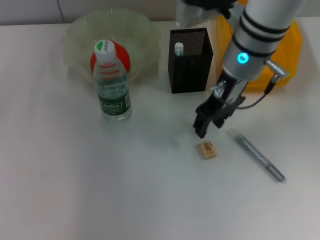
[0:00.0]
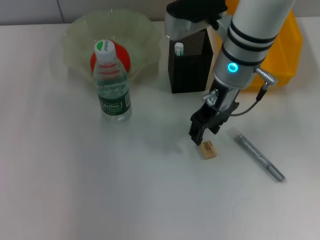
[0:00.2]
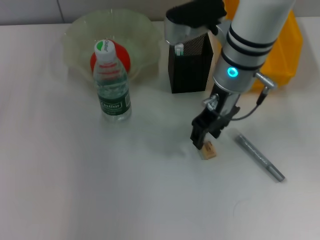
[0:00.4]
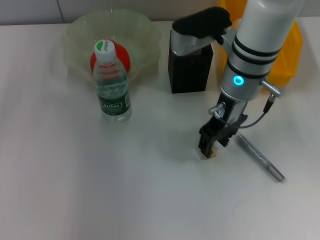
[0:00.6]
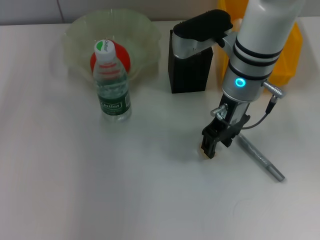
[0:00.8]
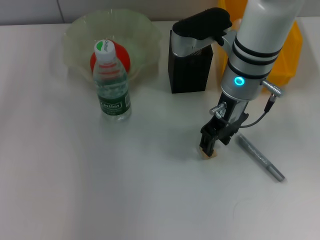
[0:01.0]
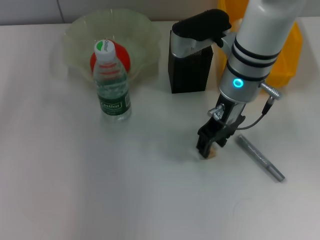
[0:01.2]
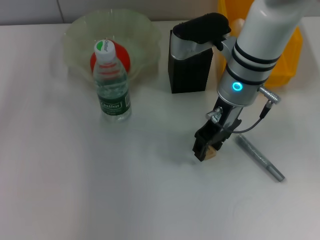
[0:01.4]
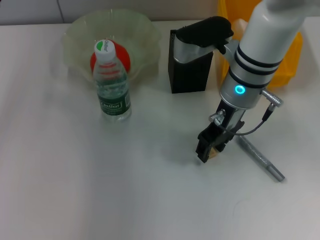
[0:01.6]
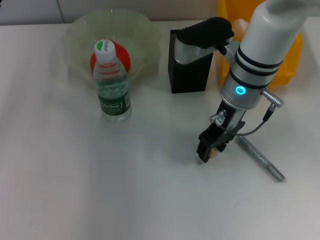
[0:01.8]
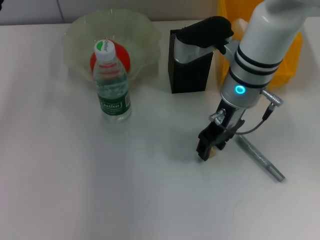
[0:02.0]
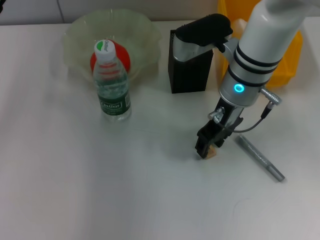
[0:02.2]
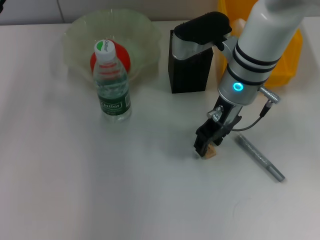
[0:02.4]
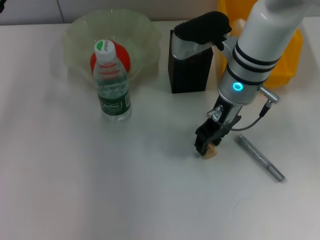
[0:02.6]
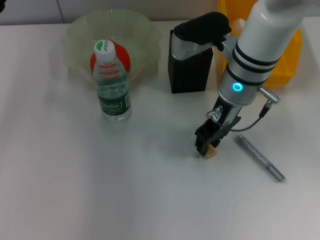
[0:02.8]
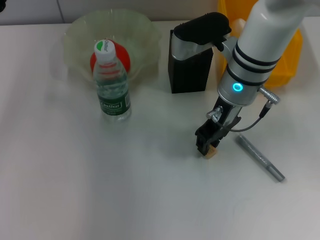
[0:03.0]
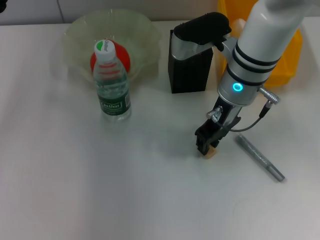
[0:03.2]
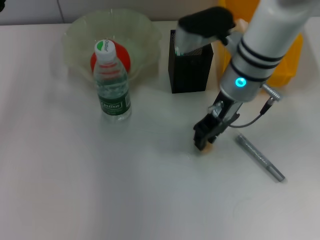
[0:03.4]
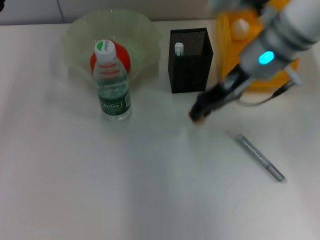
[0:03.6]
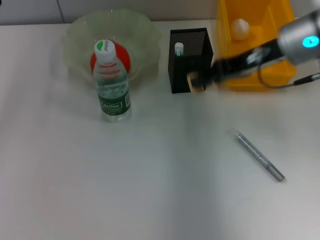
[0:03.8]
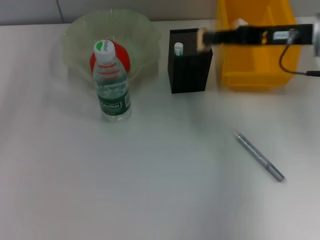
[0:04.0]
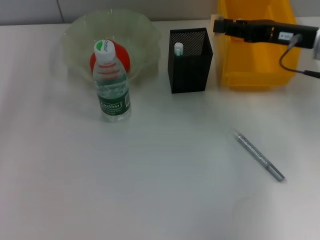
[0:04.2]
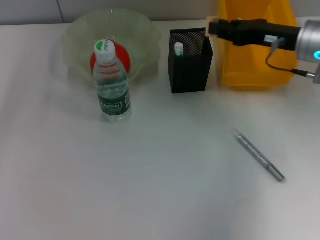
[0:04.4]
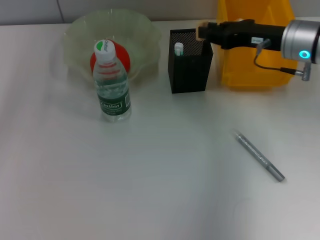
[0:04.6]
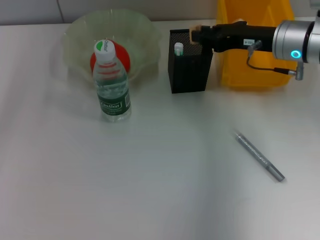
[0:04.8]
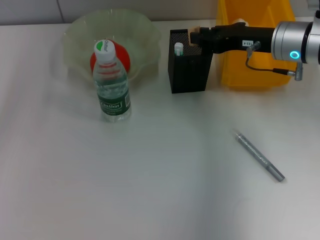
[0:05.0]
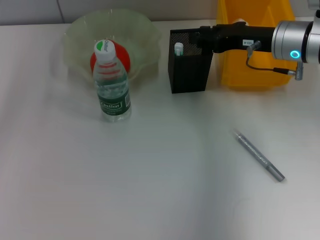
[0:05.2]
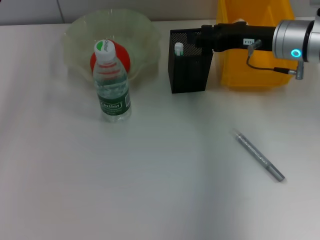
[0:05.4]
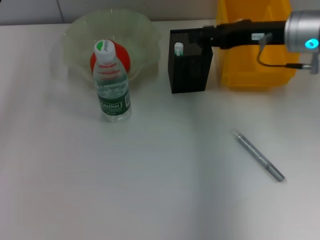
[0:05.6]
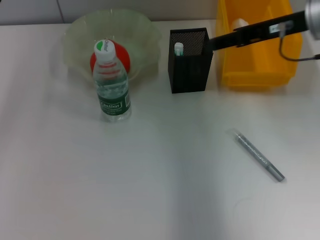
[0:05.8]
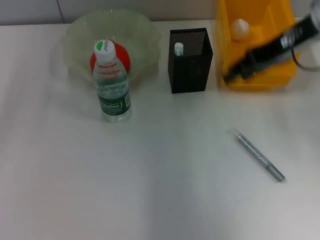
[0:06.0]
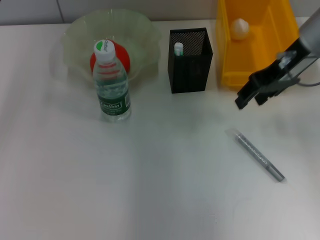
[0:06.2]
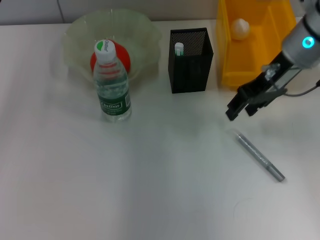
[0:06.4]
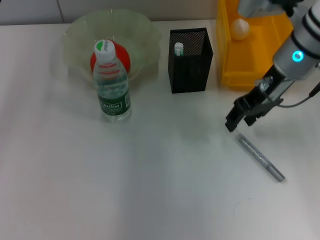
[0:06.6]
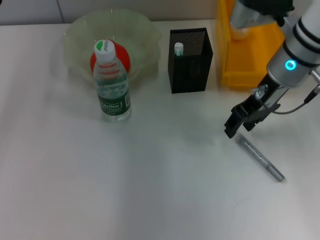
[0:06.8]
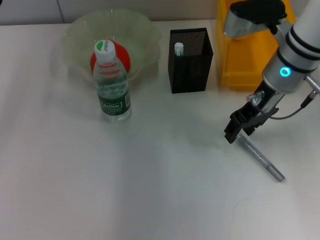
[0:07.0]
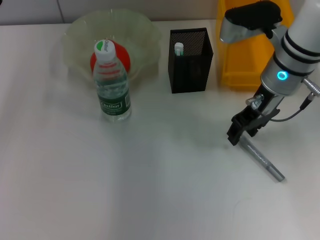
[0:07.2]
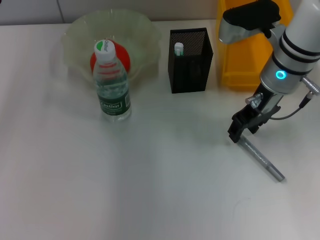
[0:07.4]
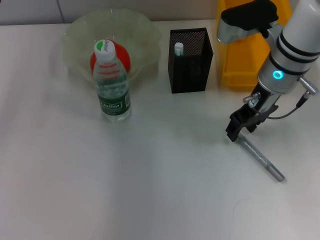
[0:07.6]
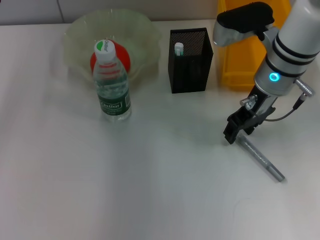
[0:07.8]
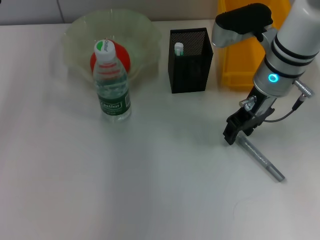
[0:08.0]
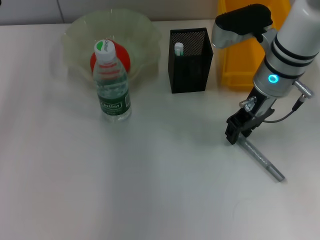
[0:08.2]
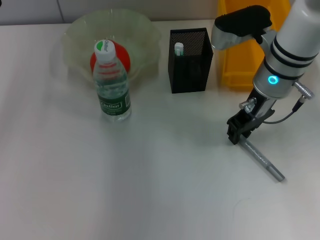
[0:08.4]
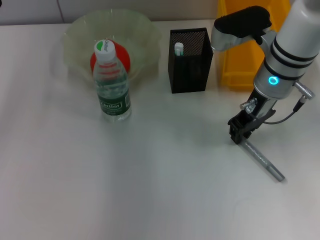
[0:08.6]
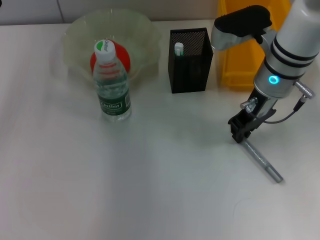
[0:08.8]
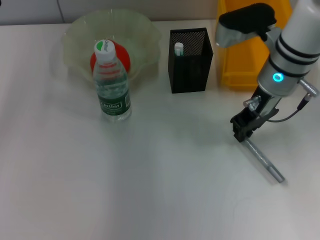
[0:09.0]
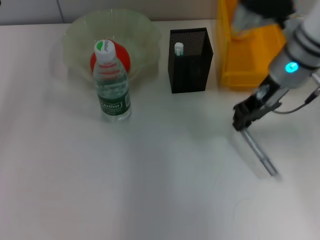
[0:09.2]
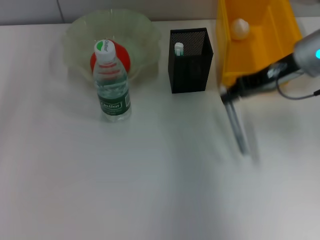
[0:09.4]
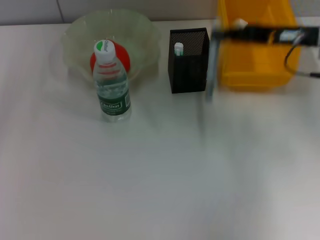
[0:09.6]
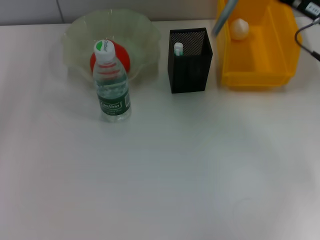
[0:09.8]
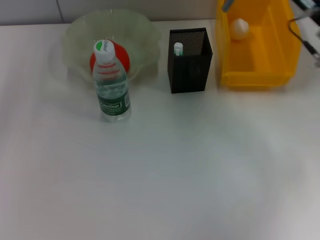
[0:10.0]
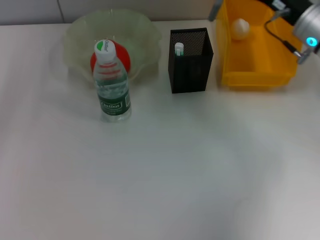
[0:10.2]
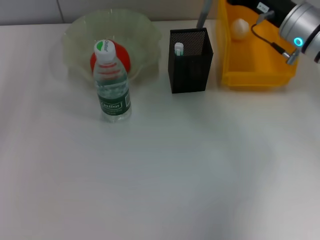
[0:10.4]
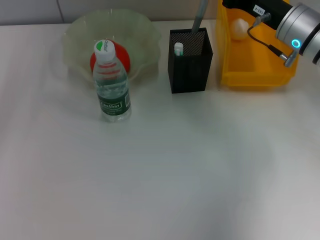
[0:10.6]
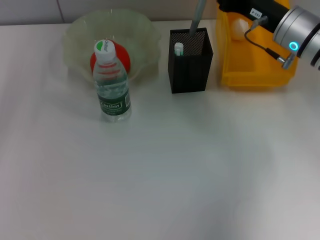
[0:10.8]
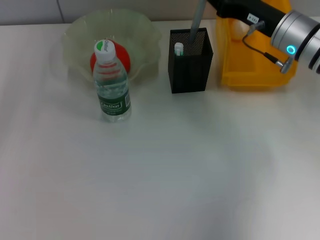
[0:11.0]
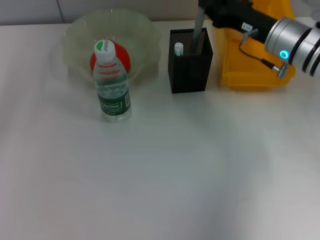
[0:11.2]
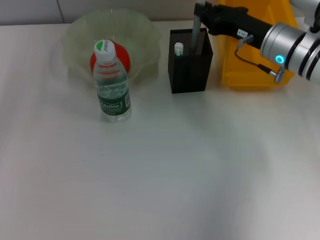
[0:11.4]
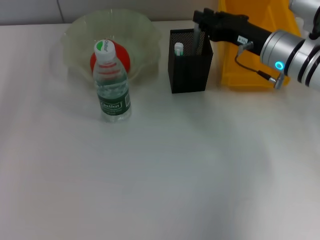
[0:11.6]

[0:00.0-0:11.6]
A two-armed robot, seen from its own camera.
Step, 0:00.0 to 0:03.0: Grab the eraser with the right hand.
Step, 0:03.2 to 0:05.0: Put the eraser into the pen holder with the right hand.
Step, 0:05.2 to 0:08.6: Grab the gray glue with the right hand.
Step, 0:09.0 to 0:11.6: Place the gray glue into the pen holder with the right hand.
0:00.0 to 0:01.4: There are only small adjustments of the grippers.
0:01.4 to 0:02.8: Neither gripper changes place.
0:02.8 to 0:04.4: The right gripper is displaced to the right by some 15 cm.
0:04.4 to 0:05.8: The right gripper goes some 10 cm upward, and opens its fingers.
0:05.8 to 0:07.2: The right gripper travels downward and to the left by about 10 cm.
0:07.2 to 0:08.8: The right gripper closes up.
0:08.8 to 0:10.2: The right gripper travels to the right by approximately 10 cm.
0:10.2 to 0:11.6: There are only small adjustments of the grippers.

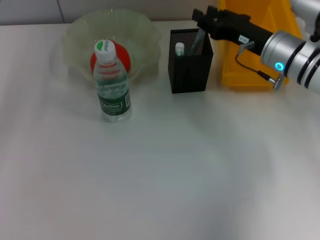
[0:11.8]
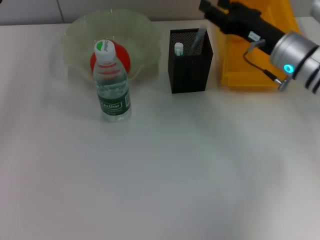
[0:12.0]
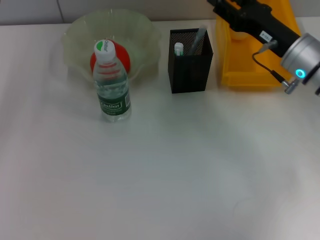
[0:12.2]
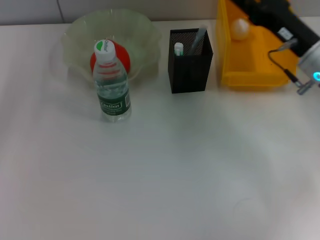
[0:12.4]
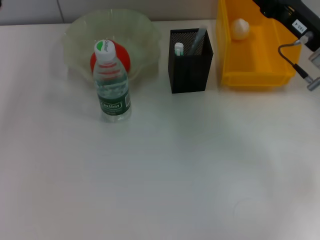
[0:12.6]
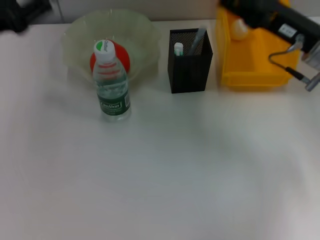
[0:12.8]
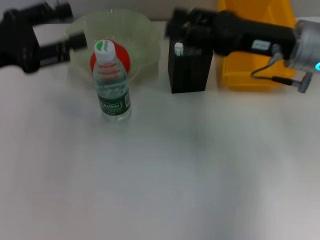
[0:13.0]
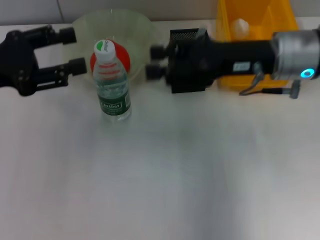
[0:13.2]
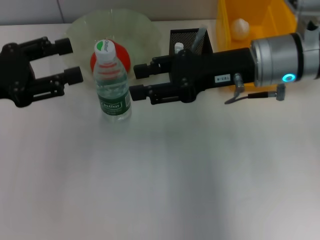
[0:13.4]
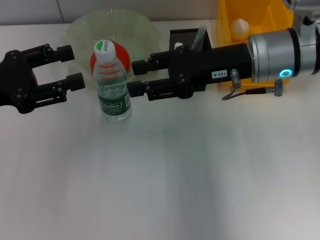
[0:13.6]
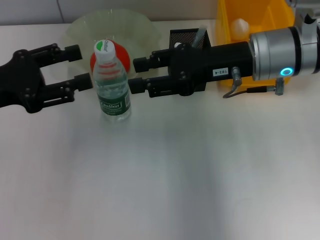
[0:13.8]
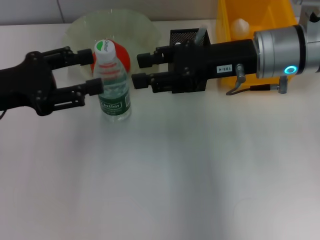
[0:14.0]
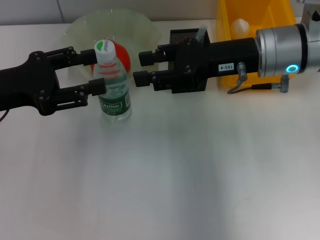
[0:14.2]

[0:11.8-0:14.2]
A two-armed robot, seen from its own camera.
0:11.8 to 0:13.0: The grippers both shift upward by some 5 cm. The right gripper opens.
